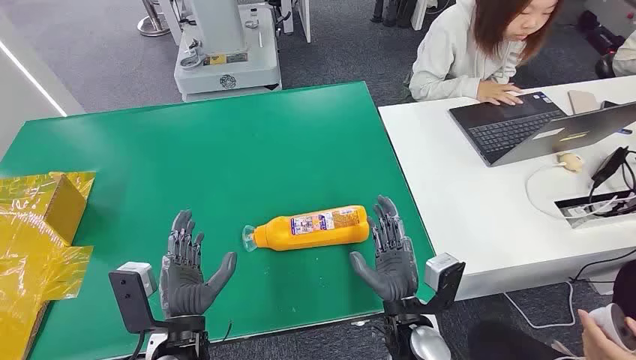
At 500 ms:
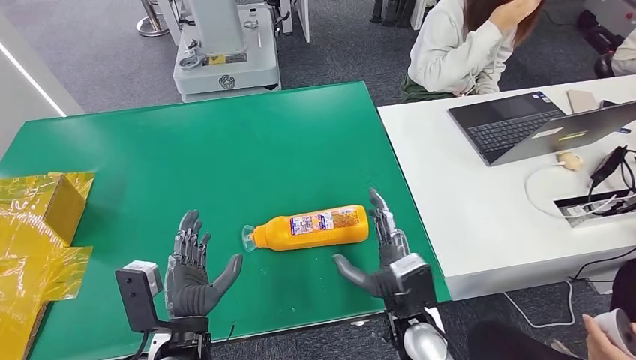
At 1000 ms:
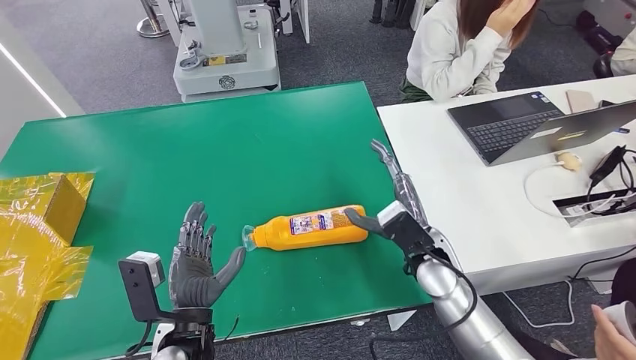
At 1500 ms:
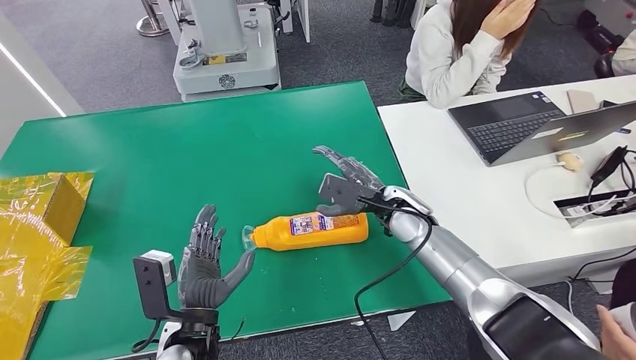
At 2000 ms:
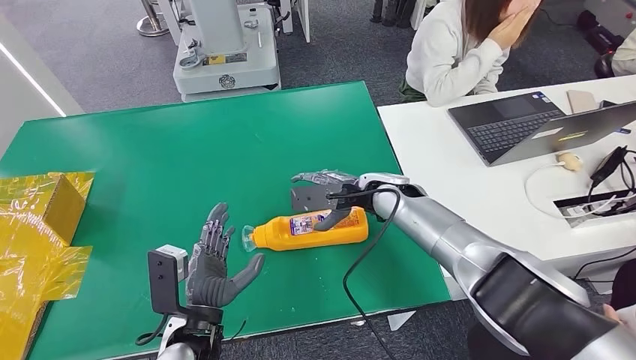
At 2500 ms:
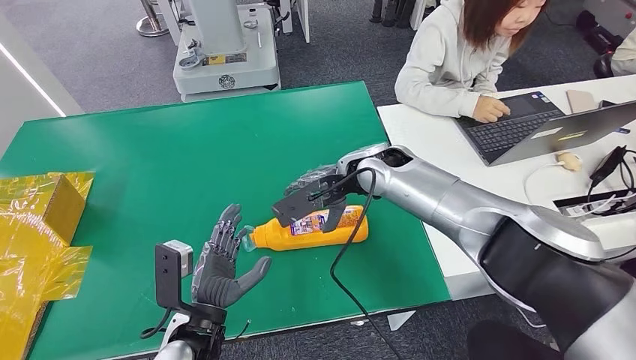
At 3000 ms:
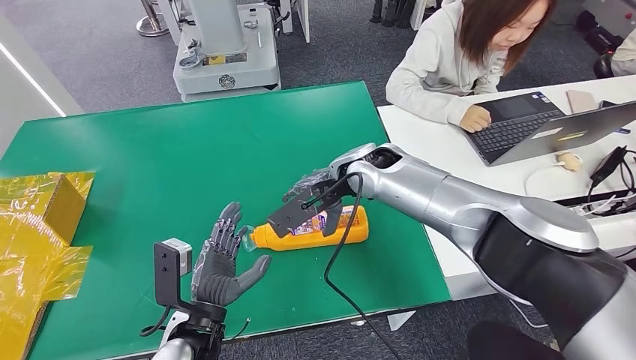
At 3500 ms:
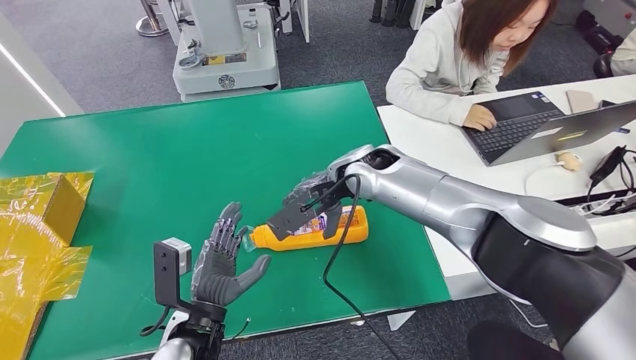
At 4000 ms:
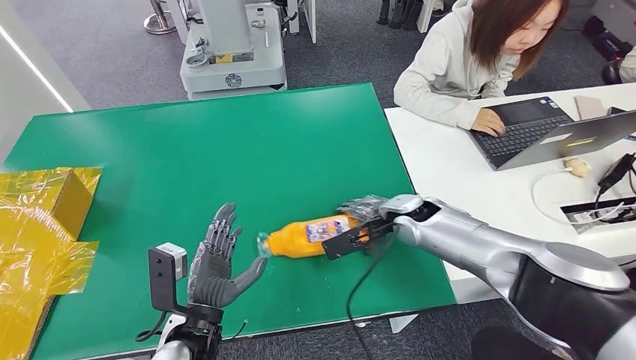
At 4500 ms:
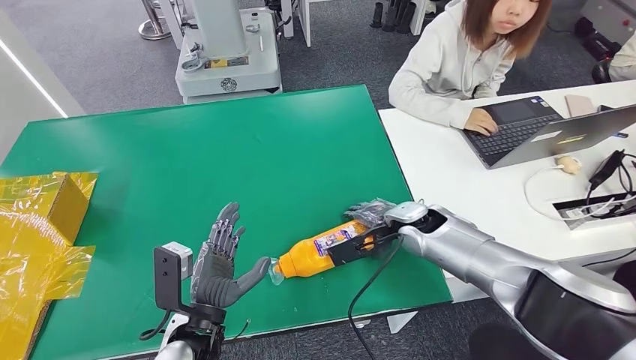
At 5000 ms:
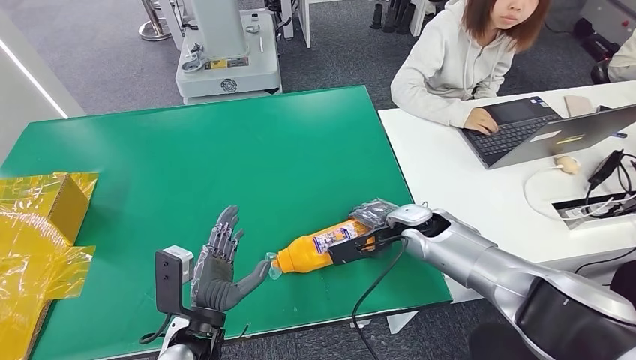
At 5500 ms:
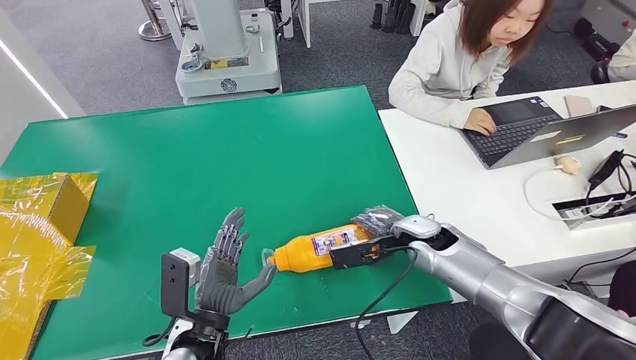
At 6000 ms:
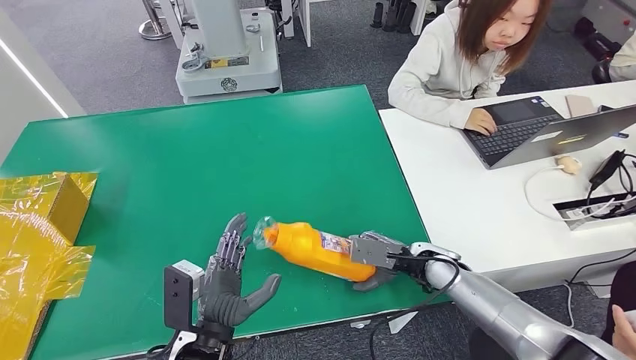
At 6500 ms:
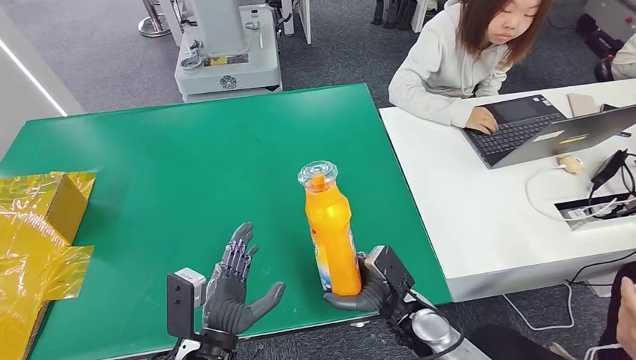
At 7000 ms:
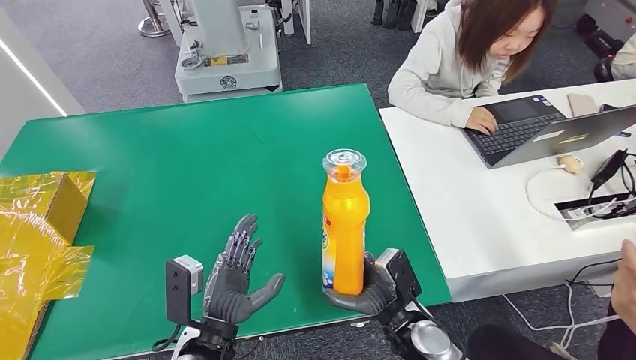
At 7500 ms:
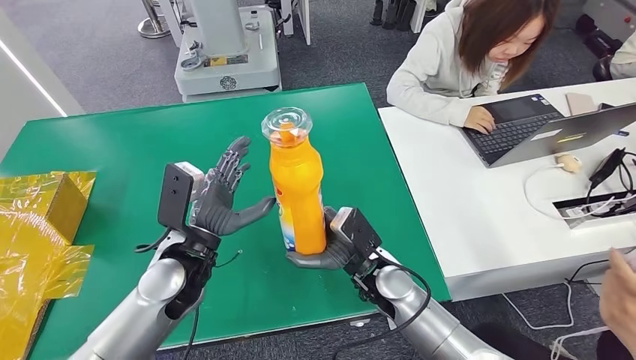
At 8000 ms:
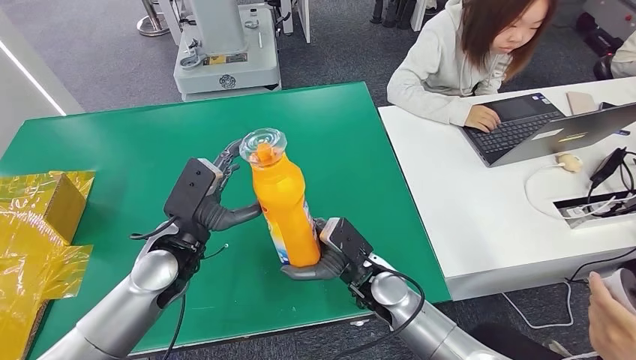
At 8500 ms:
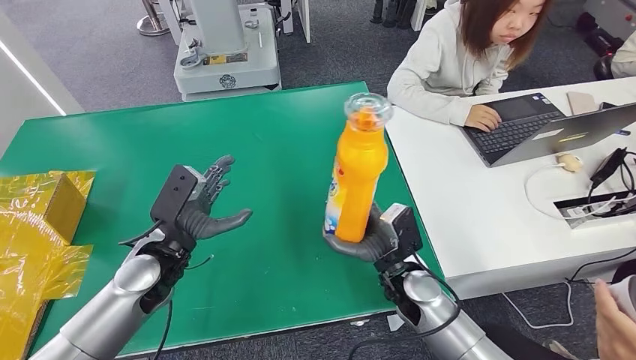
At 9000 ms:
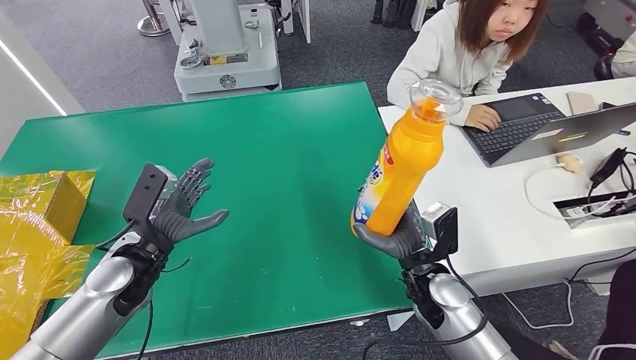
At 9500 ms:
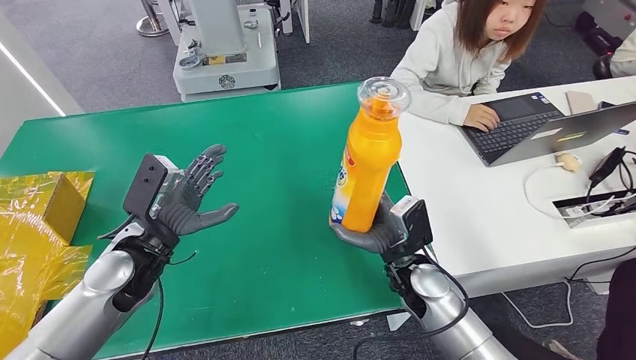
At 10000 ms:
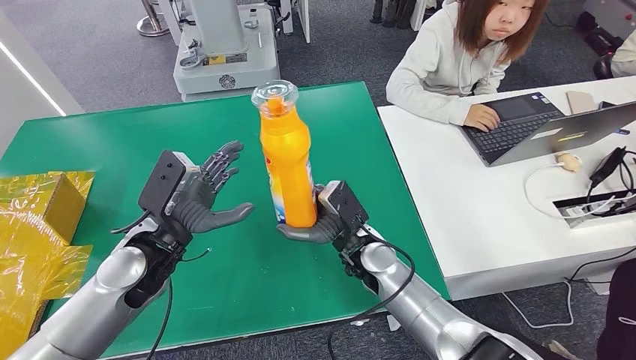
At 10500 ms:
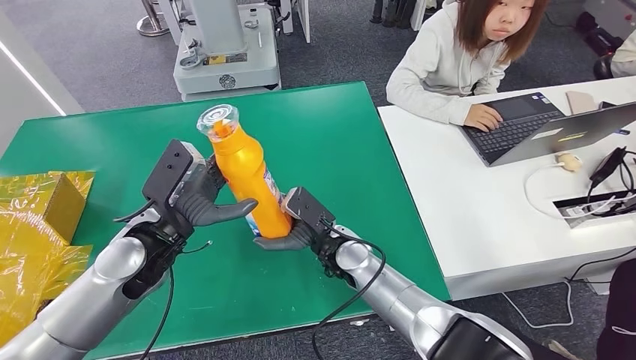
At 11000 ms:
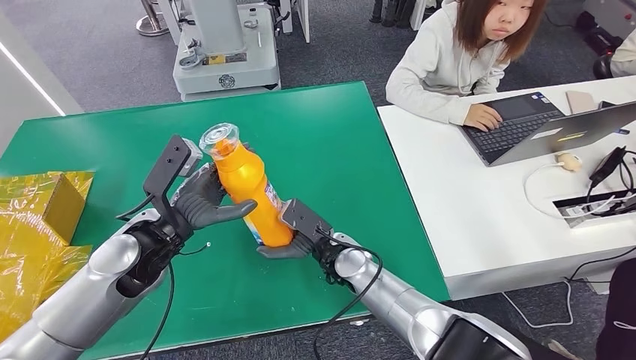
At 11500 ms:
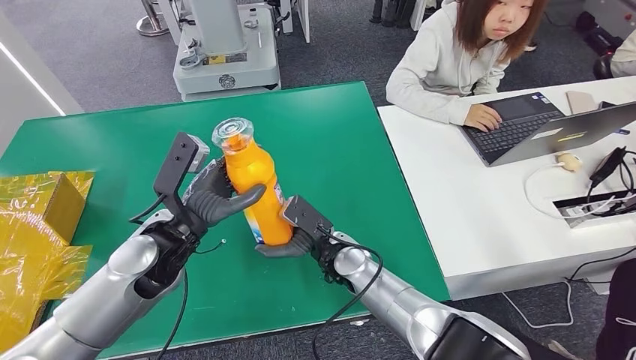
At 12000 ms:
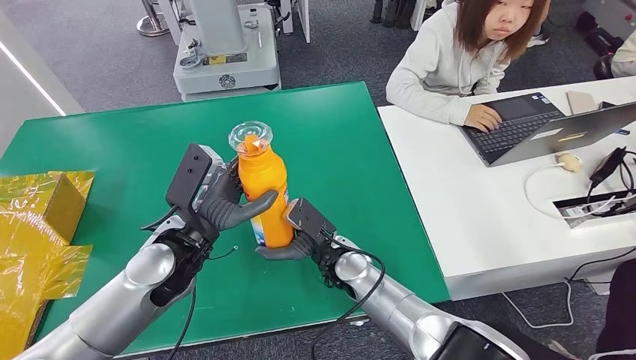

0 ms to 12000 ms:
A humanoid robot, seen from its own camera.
Step, 0 ms to 6500 ms: Pick up the bottle from the table.
10000 ms to 12000 ms: The left hand shifts some 5 cm to the right.

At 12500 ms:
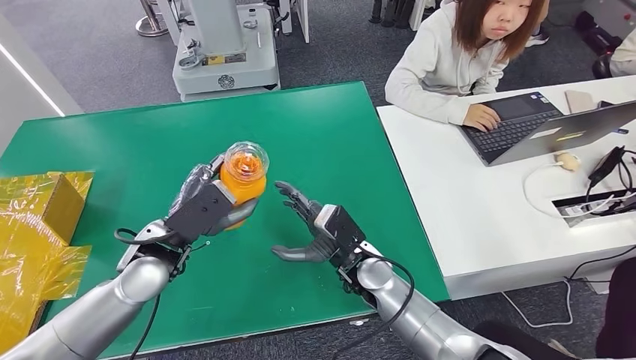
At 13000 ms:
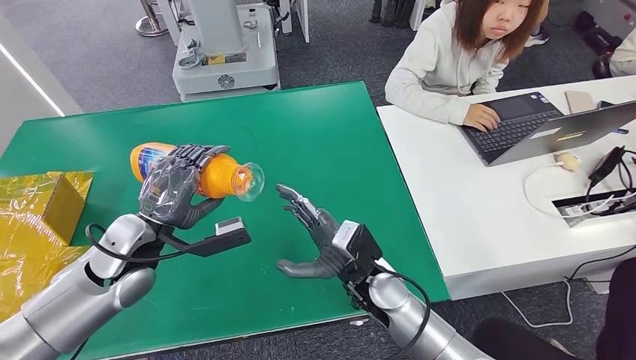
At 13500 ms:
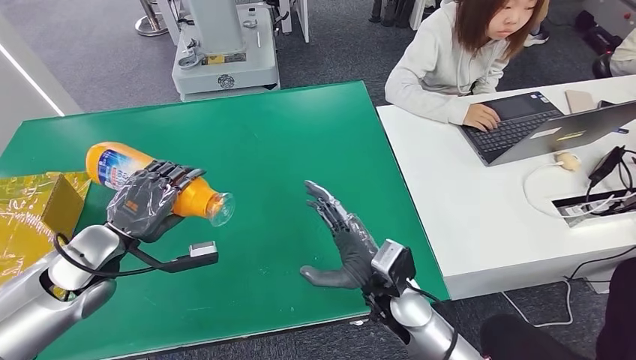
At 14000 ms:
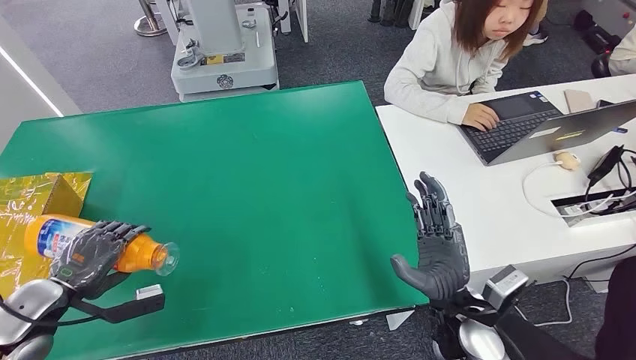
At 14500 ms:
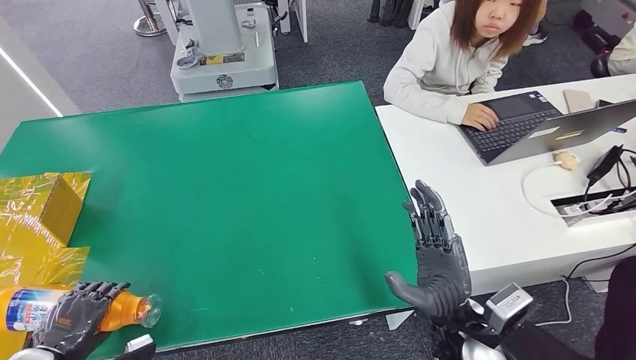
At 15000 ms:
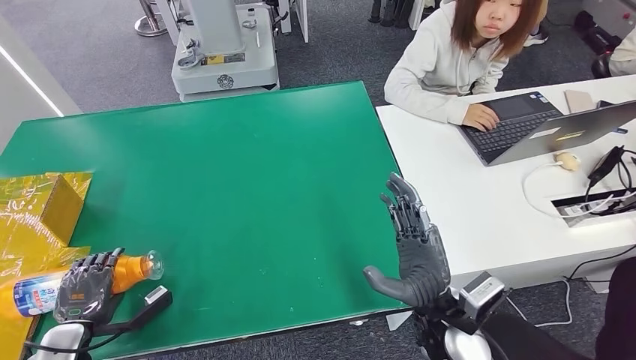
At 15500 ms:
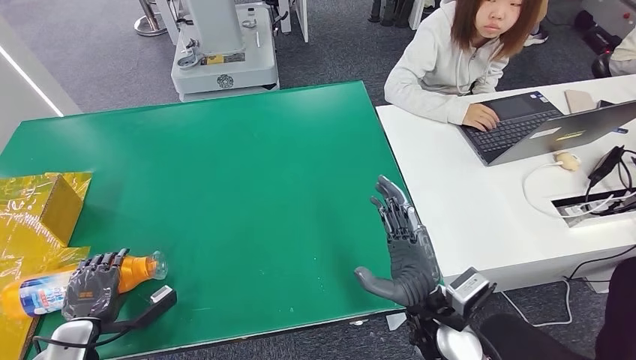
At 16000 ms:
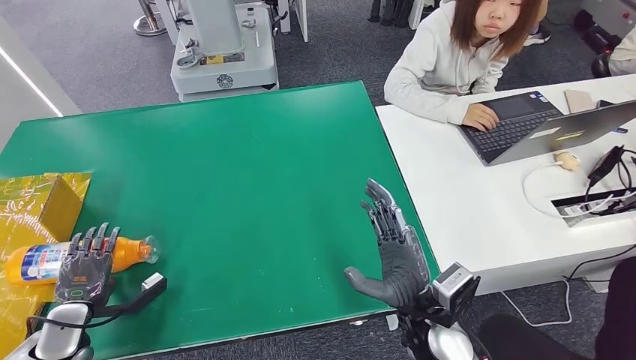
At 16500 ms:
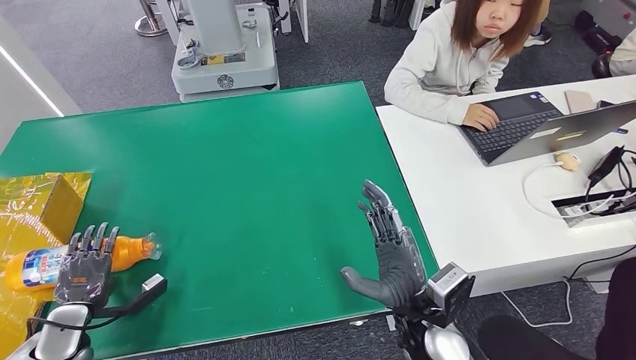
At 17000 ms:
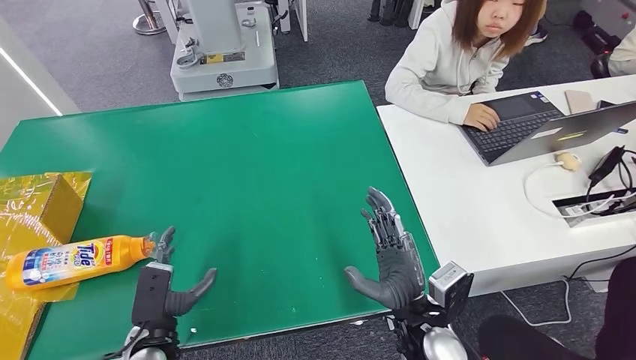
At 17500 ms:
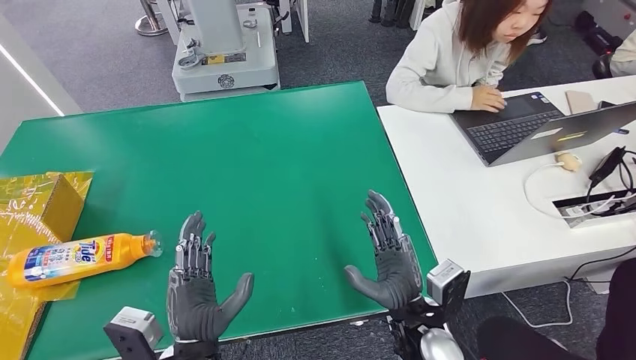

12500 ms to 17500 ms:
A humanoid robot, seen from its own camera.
Step, 12500 ms to 17500 ms: Turn the bottle to the front side.
12500 ms to 15000 ms: The left hand heads to the left, downward and backward, covering approximately 30 cm. The right hand moves backward and to the right, some 15 cm.
15000 ms to 17500 ms: The left hand shifts some 25 cm to the right.
